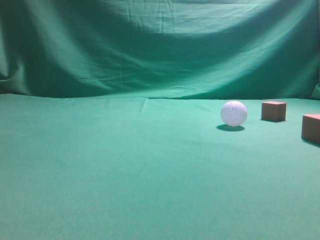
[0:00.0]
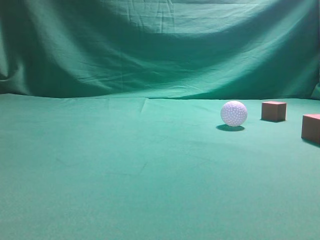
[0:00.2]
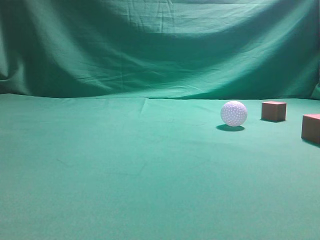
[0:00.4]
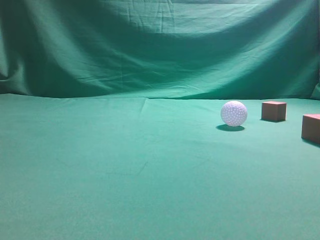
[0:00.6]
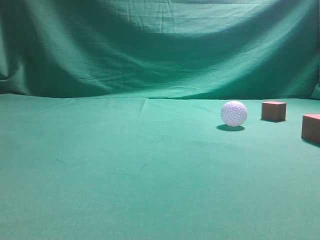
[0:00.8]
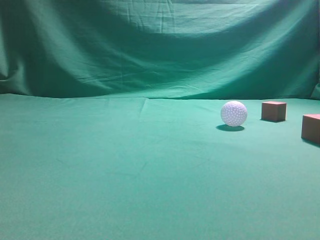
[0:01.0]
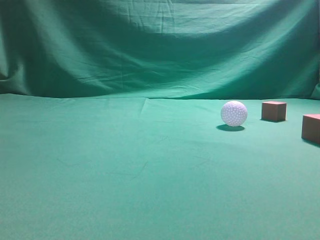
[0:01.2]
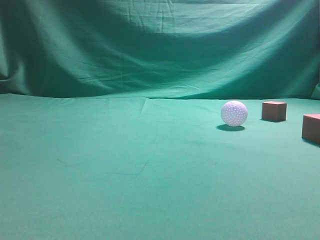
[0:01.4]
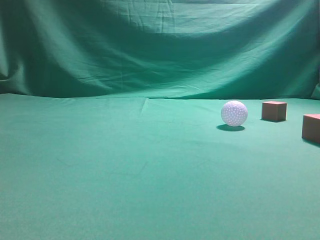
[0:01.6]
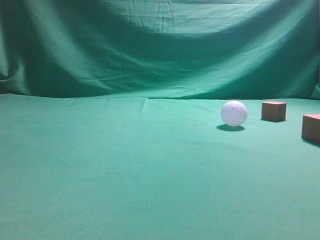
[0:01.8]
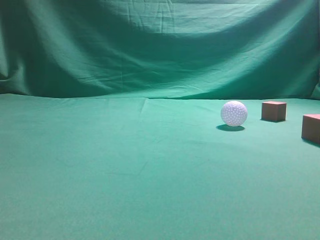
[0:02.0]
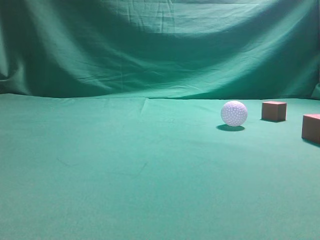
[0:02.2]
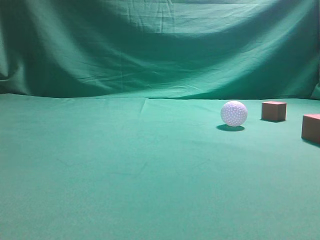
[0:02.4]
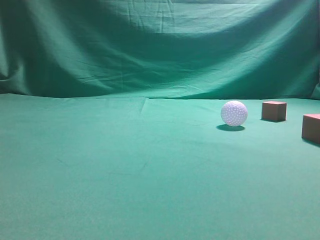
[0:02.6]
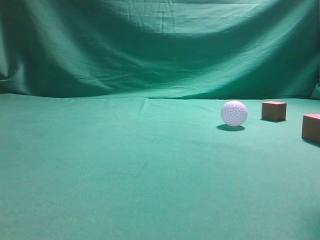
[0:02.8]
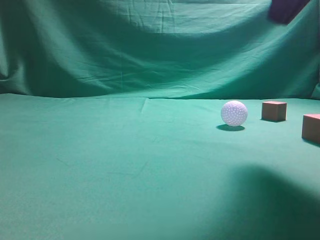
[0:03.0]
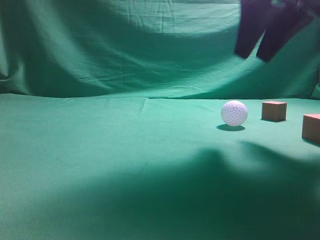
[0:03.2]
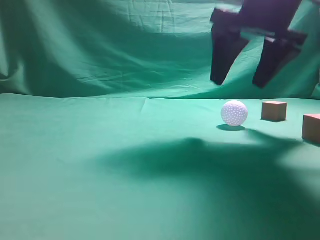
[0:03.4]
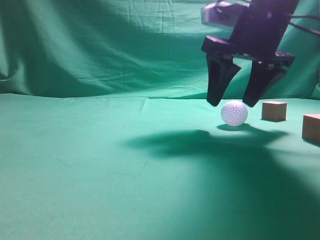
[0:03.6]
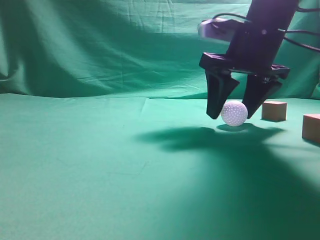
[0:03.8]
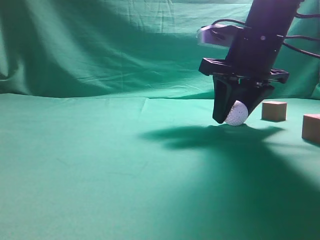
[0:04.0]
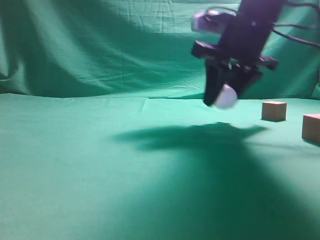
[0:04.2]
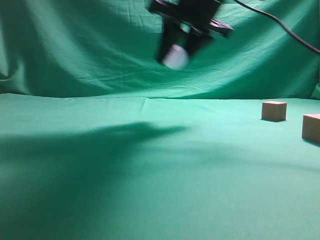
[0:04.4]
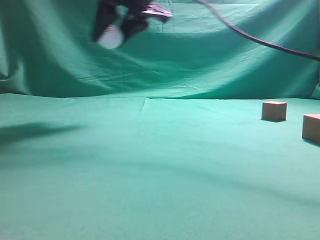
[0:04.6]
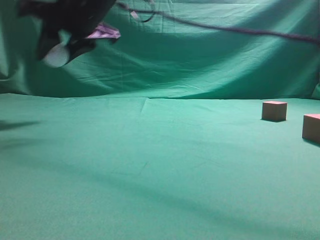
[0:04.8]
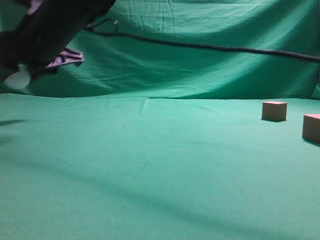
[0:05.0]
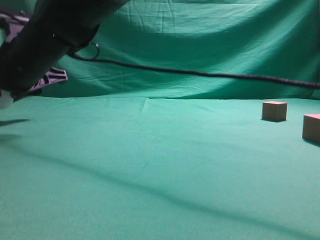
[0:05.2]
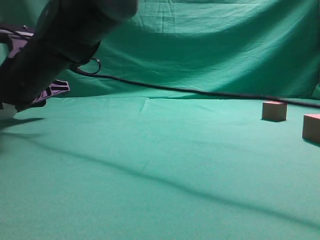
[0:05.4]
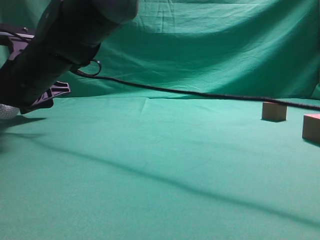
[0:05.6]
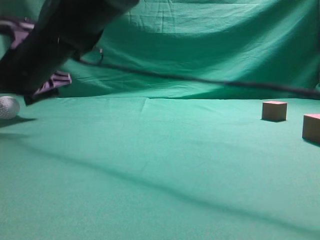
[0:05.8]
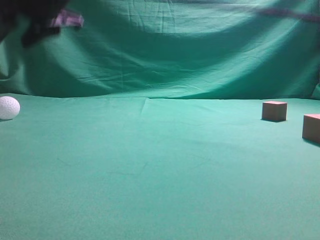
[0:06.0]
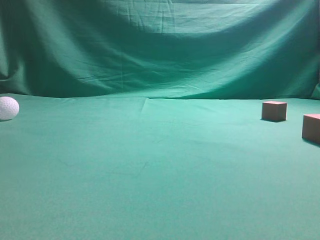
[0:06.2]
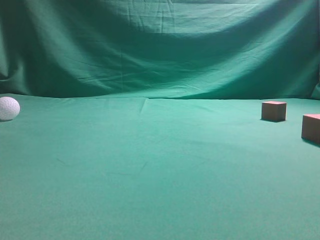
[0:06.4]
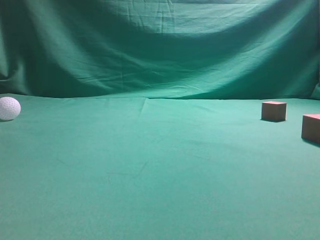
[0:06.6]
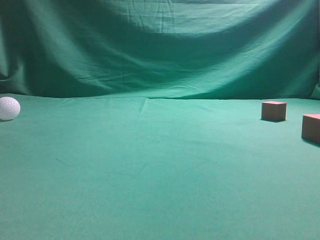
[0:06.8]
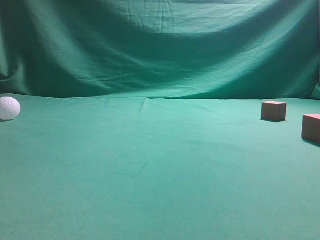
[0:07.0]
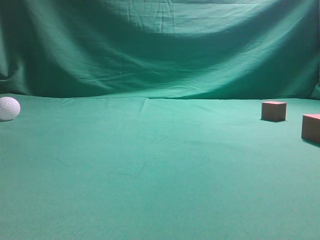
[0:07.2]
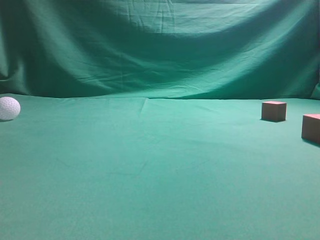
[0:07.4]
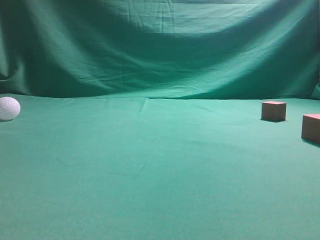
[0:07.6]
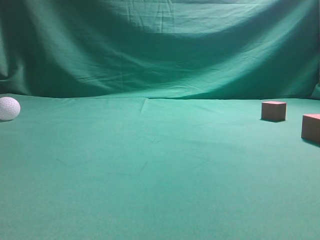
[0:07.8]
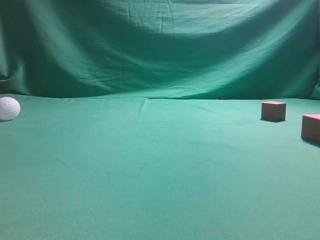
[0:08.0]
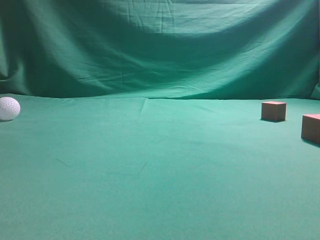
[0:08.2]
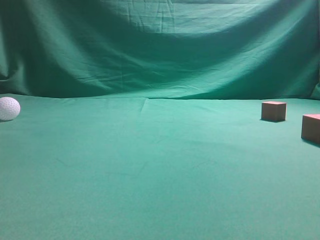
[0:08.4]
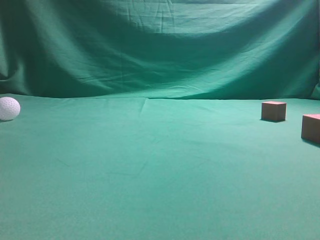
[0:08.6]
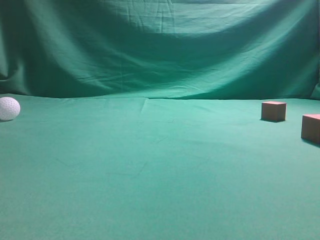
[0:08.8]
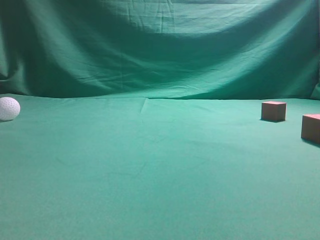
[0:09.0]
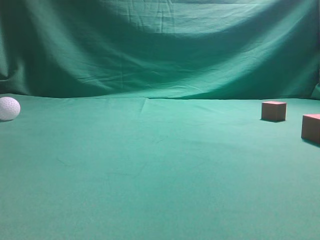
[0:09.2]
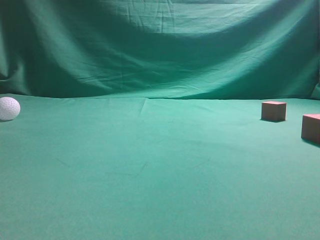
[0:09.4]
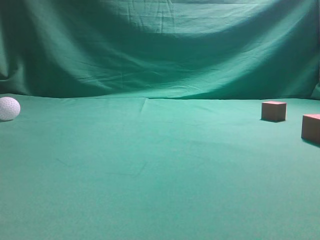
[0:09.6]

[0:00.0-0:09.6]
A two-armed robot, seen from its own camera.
Step, 0:00.0 to 0:04.2: Grasp the spherical object on the right side.
0:01.6 to 0:03.2: The right gripper travels forward and to the left by about 30 cm, and opens.
0:03.2 to 0:04.8: The right gripper moves to the left, some 25 cm, and opens, then closes again.
0:04.8 to 0:06.4: The right gripper heads upward and to the right, covering about 25 cm, and closes up.
